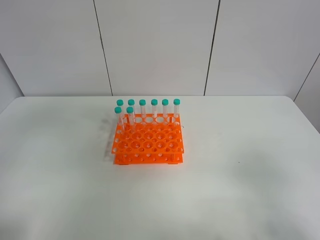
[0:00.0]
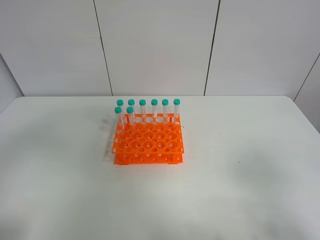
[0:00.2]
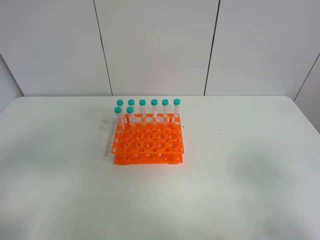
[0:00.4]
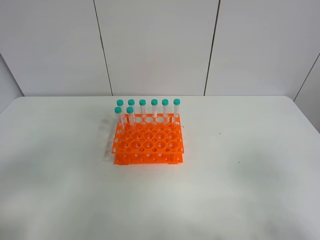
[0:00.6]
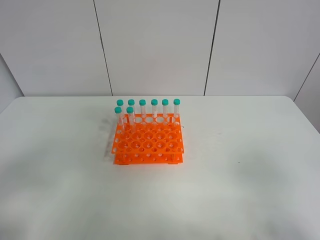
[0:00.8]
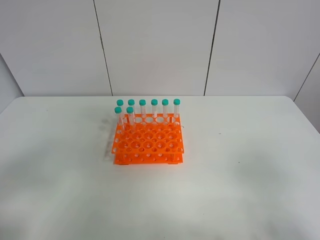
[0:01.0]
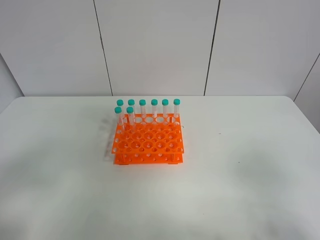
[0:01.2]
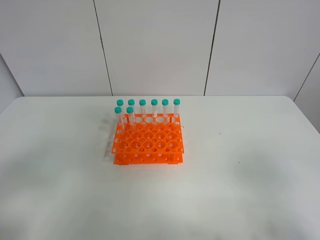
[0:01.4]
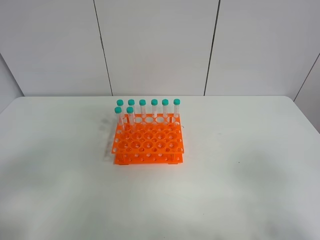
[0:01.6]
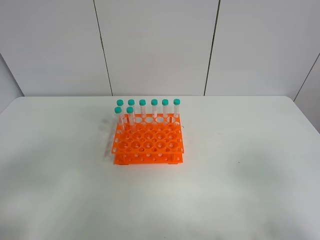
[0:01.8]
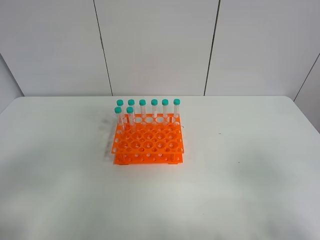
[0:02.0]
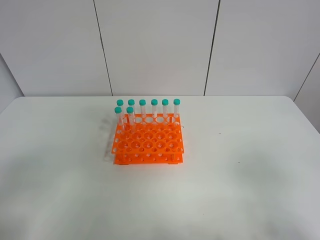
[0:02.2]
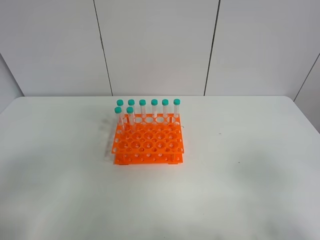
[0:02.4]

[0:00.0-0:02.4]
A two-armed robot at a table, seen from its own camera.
Task of the whole recording: Put the test tube on the table back onto the test tube rack.
0:00.0 to 0:01.2: The left gripper travels downward and backward by roughly 15 cm.

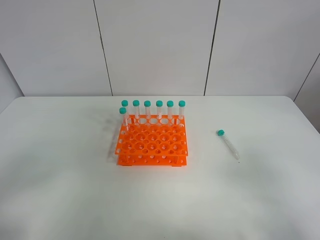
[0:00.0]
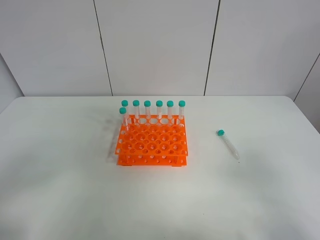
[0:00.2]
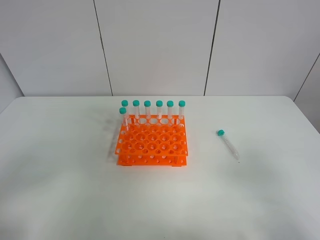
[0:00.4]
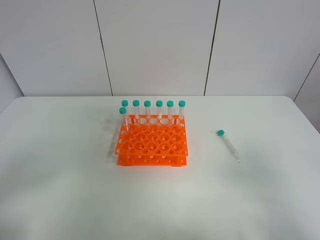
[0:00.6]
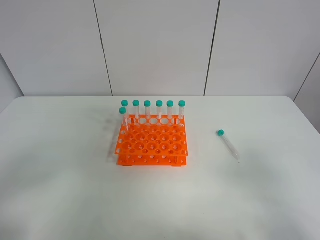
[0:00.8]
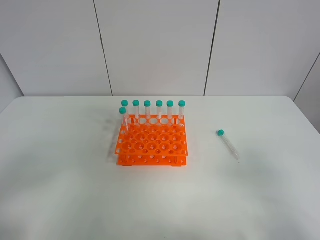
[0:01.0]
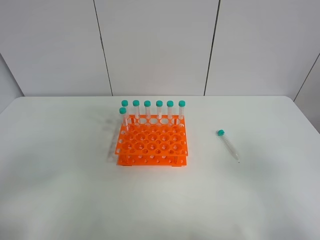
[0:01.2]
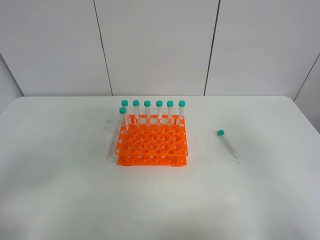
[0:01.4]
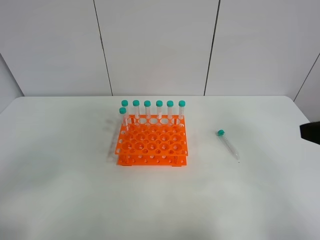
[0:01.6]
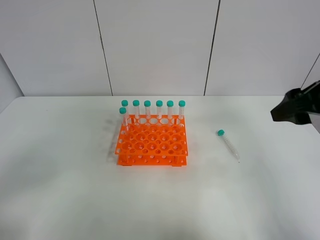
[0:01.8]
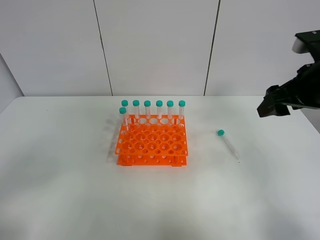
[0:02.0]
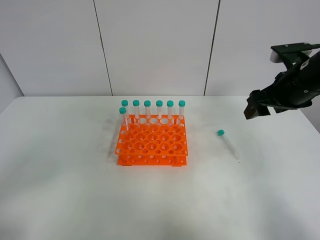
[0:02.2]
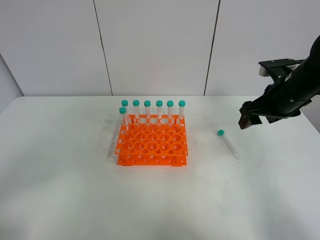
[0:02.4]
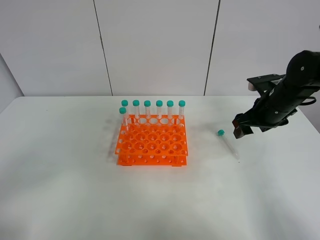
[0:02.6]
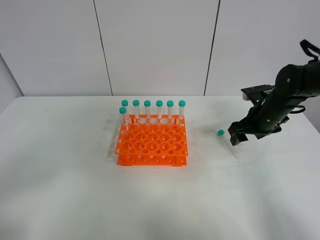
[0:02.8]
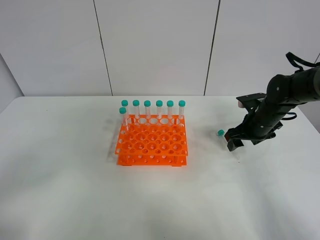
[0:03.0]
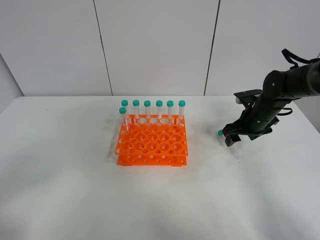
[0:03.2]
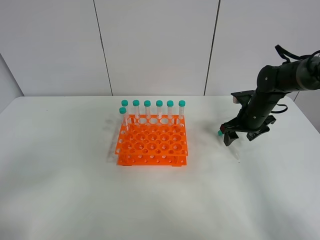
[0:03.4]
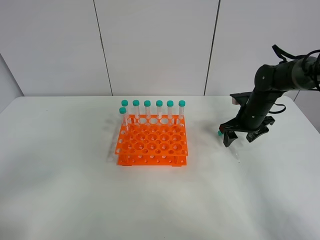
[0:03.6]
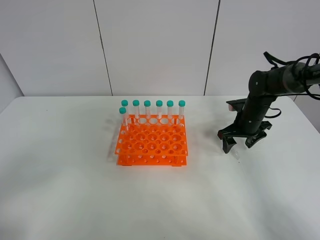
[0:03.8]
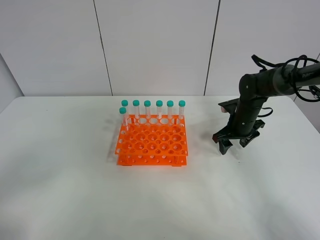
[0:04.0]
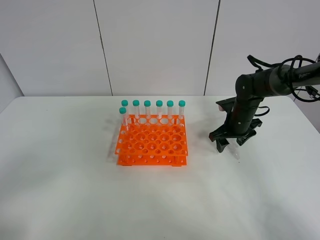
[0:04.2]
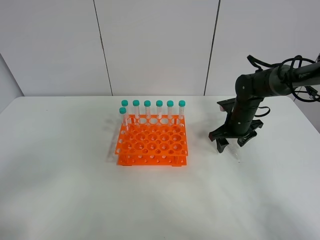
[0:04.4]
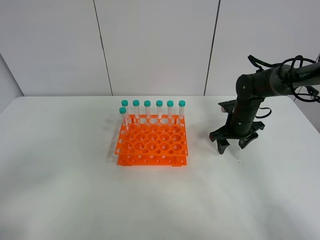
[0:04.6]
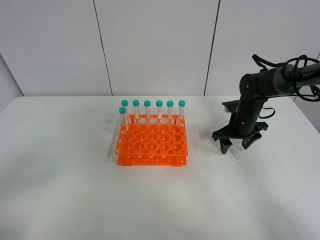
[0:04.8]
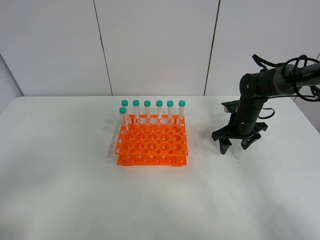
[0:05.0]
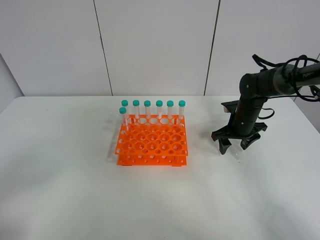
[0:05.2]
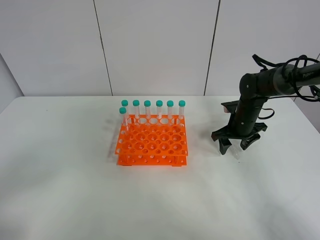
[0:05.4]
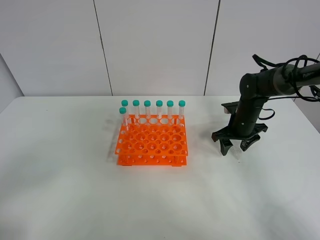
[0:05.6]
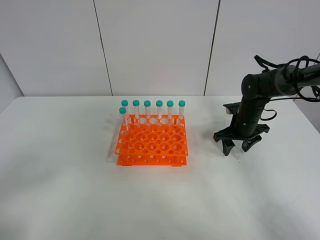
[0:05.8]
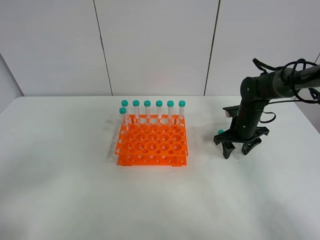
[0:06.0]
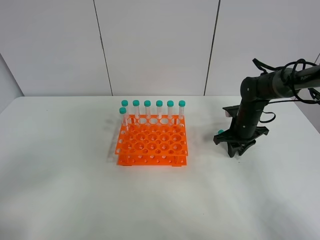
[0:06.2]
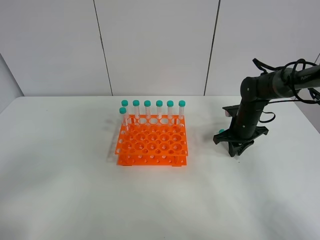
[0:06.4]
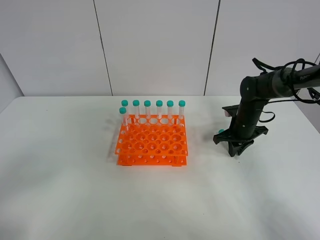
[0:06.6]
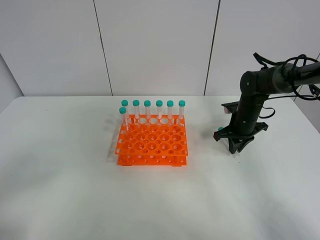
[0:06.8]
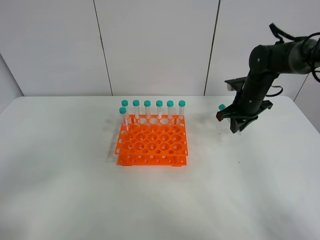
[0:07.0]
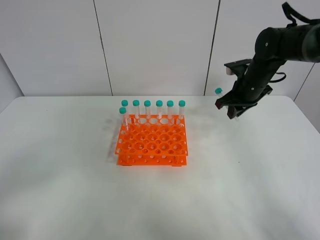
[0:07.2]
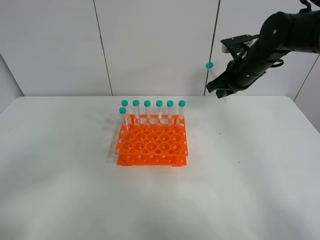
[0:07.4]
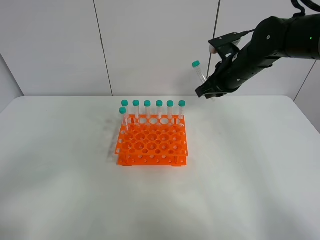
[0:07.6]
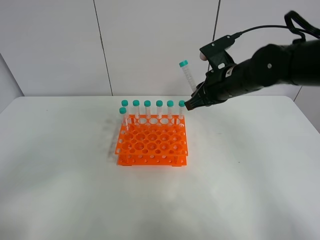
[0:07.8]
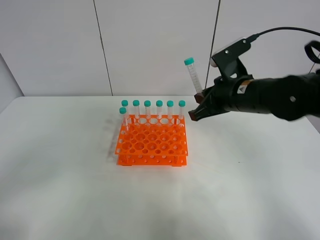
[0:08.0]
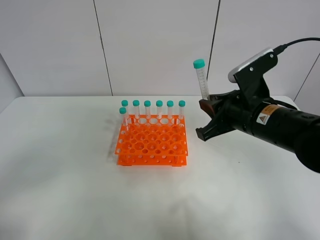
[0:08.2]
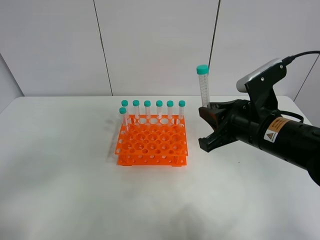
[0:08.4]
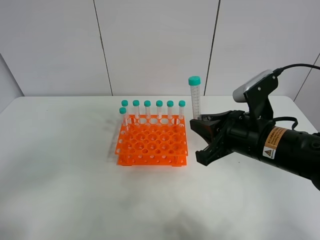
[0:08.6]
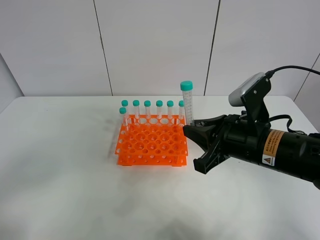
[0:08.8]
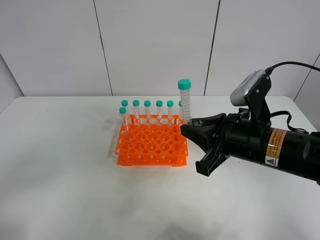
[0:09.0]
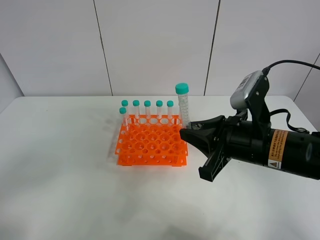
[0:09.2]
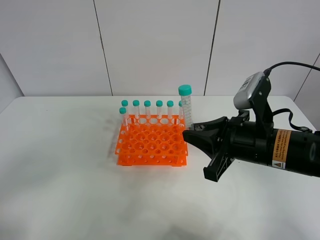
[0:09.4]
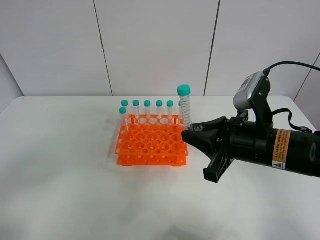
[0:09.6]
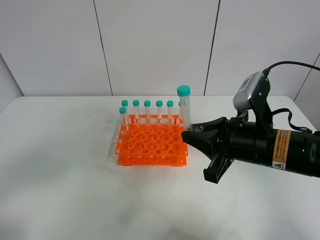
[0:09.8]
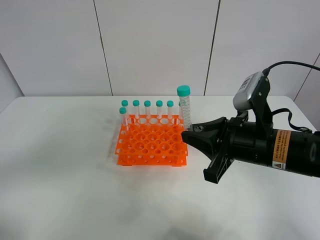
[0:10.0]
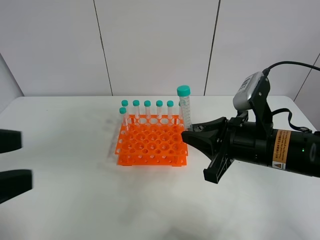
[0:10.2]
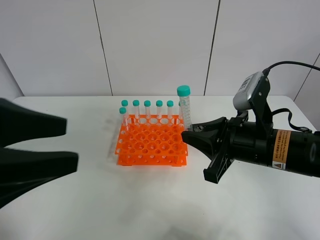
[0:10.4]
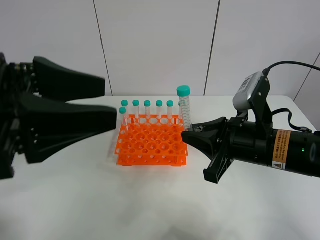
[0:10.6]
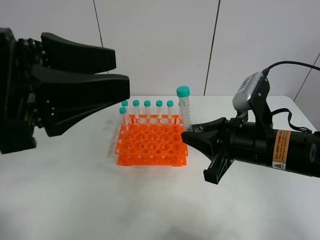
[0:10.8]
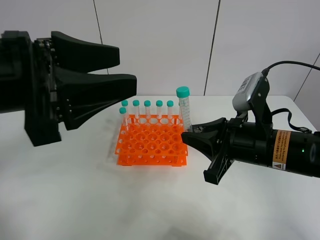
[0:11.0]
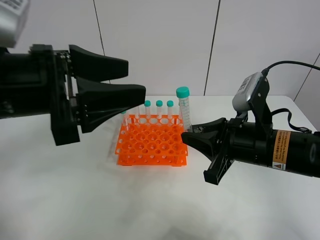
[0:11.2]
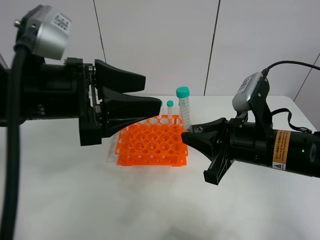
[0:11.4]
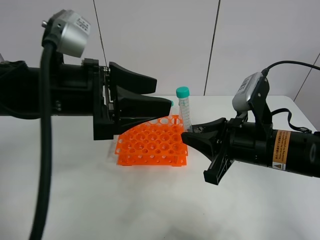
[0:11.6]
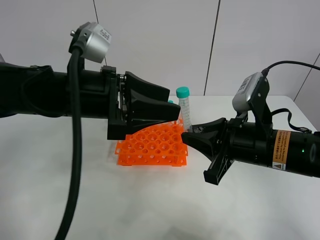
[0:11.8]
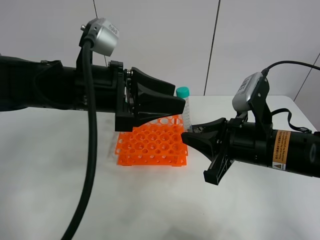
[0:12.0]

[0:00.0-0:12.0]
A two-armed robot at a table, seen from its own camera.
Task of the whole recording: Put the test tube on the table back onto the test tube rack.
Step, 0:00.0 to 0:07.2: Pick up the test tube with the right gripper.
0:00.0 to 0:01.6: The right gripper moves forward, some 15 cm.
0:01.6 to 0:03.0: The right gripper travels forward and downward by about 30 cm.
0:03.0 to 0:04.4: The right gripper ends up some 5 cm from where it was.
0:04.4 to 0:06.0: The grippers move only a little.
0:06.0 to 0:07.6: The right gripper moves upward and to the left, about 15 cm, and closes up.
0:07.6 to 0:09.0: The right gripper goes approximately 20 cm backward.
0:09.0 to 0:10.4: The left gripper heads forward, to the right and upward, covering about 15 cm.
0:10.4 to 0:12.0: The left gripper shifts about 15 cm forward and to the right.

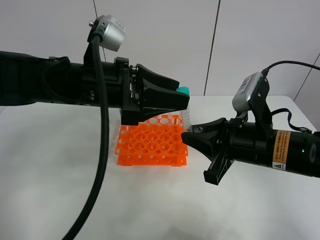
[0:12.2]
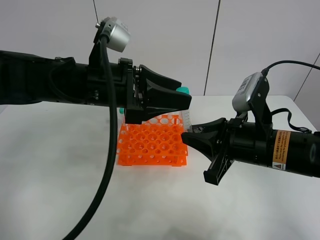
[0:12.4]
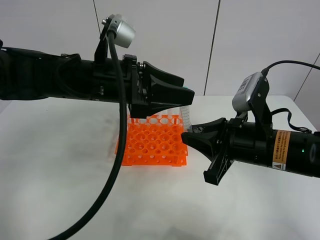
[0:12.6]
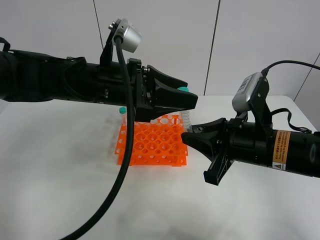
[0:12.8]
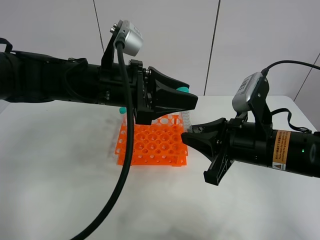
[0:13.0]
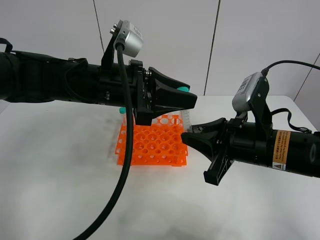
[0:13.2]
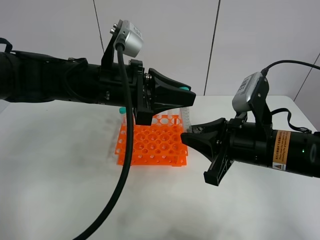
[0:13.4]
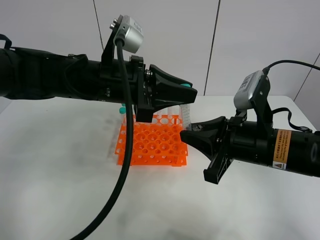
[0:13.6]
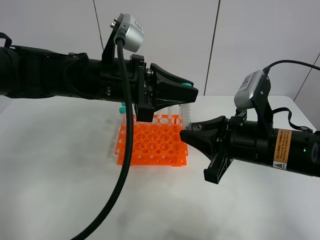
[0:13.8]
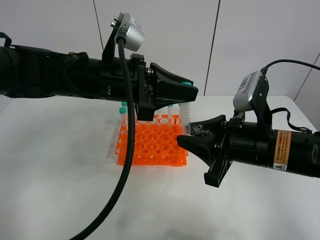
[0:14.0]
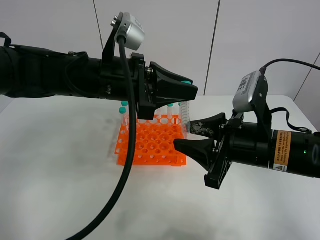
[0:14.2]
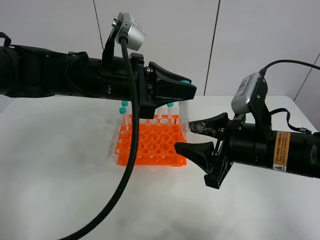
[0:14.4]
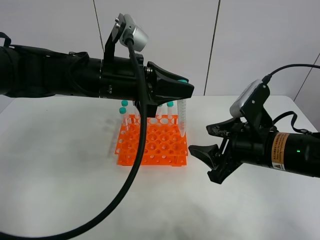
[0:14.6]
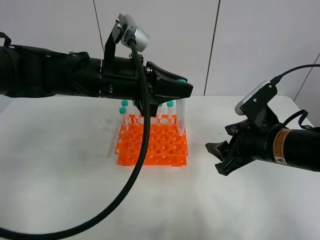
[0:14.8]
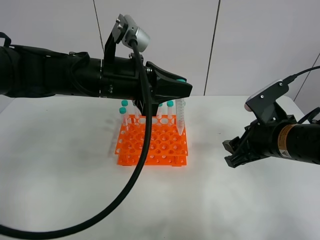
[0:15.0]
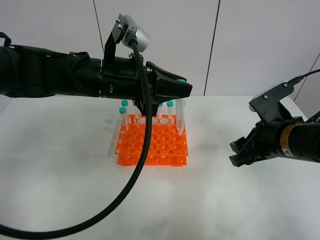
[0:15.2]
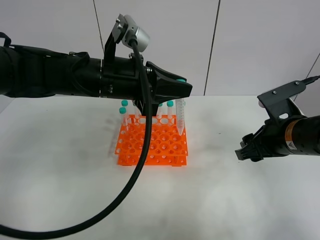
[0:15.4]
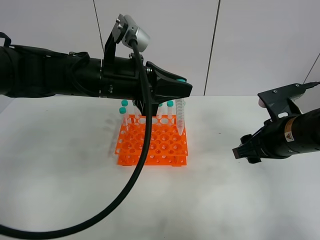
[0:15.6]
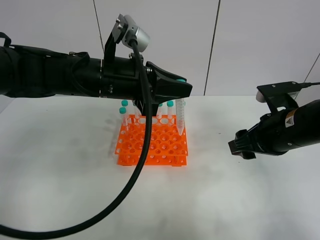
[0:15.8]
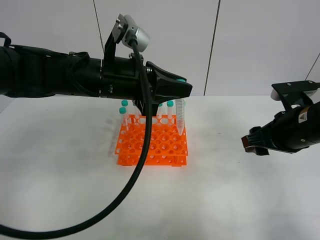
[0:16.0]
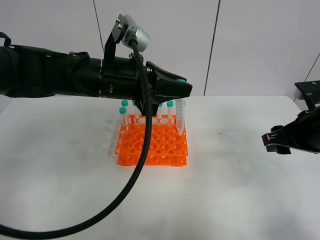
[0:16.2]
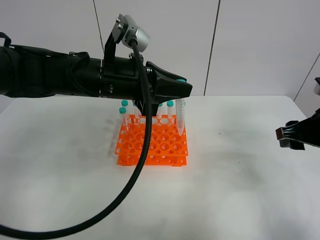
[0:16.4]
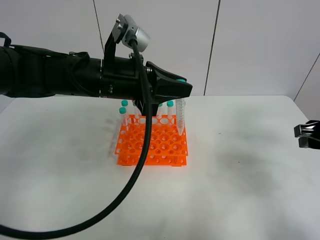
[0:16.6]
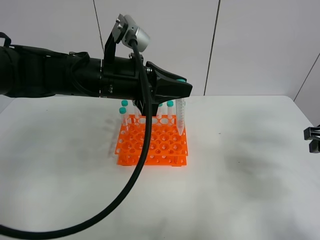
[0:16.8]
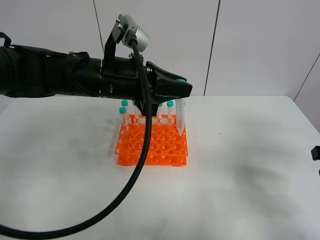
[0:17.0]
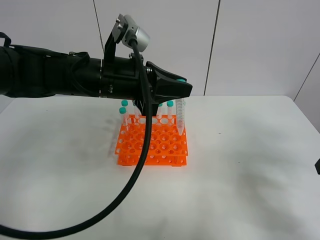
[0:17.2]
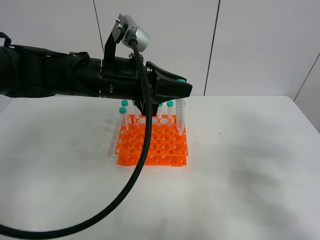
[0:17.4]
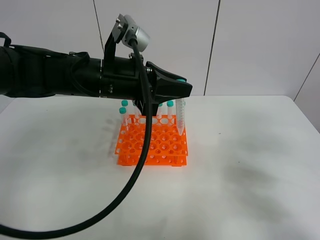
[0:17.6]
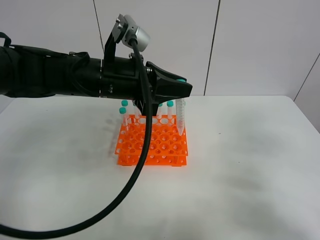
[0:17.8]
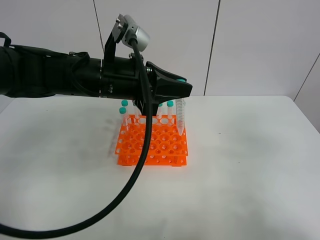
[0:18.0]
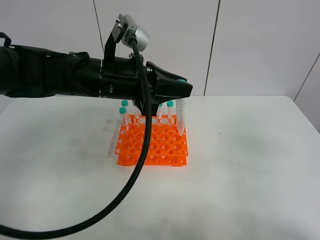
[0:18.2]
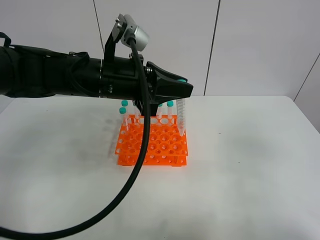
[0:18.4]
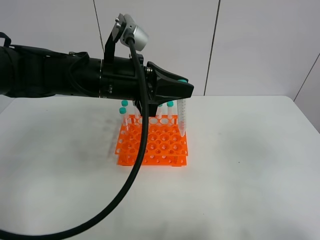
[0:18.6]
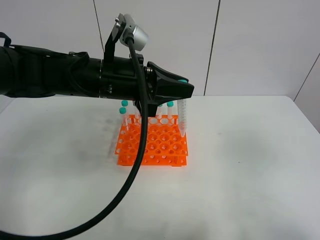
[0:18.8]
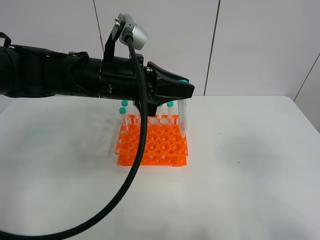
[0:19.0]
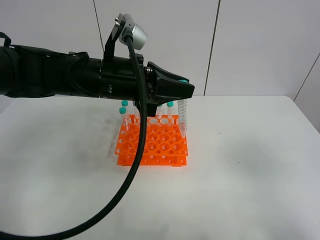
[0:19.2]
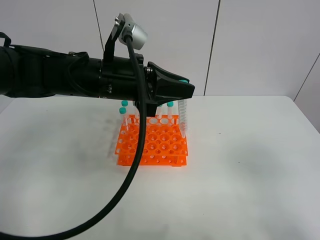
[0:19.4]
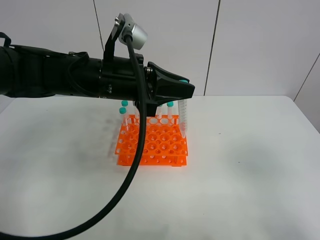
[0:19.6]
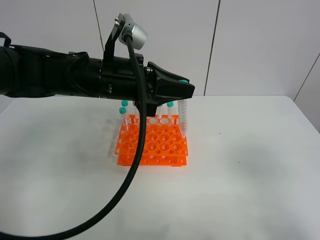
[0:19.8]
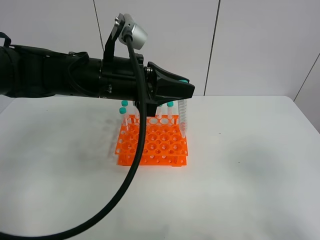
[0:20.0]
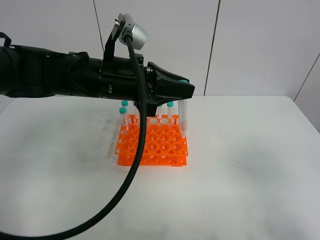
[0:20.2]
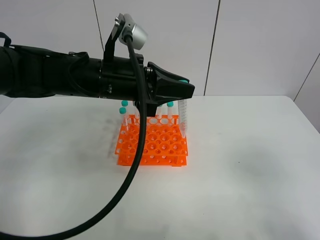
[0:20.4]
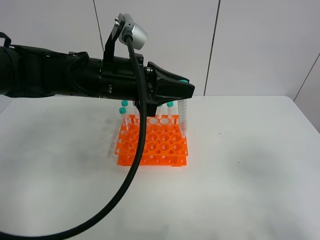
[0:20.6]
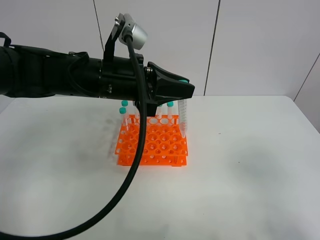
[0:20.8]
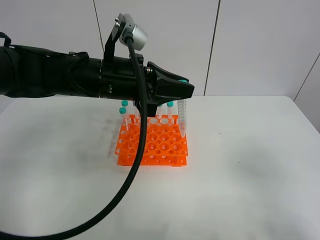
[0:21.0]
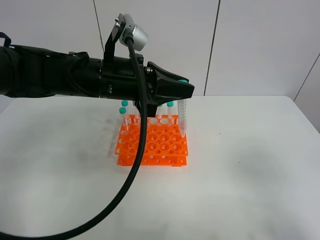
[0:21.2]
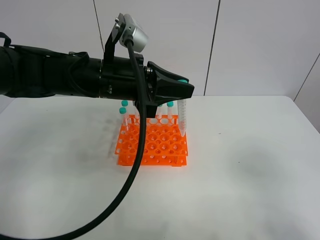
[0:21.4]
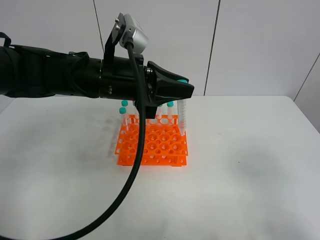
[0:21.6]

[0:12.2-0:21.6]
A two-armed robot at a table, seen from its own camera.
Task of the whole recording: Put the test tube on the table back onto the test tube rack.
Step, 0:12.2 to 0:14.8: Move the test tube from the right gripper to the left gripper.
0:12.2 to 0:13.8: The left gripper closes.
0:13.8 to 0:15.4: The right gripper is displaced to the right by approximately 5 cm, and opens.
0:15.4 to 0:17.0: The right gripper shifts about 10 cm to the right.
0:17.0 to 0:18.4: The right gripper is displaced backward and upward by roughly 20 cm.
0:18.4 to 0:20.0: The right gripper shifts roughly 10 cm downward and backward.
0:20.0 to 0:21.6: The two grippers keep their place.
